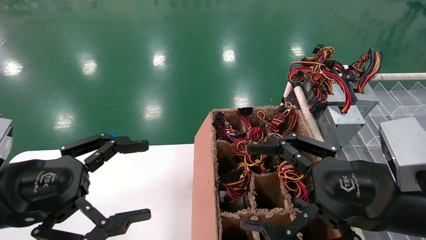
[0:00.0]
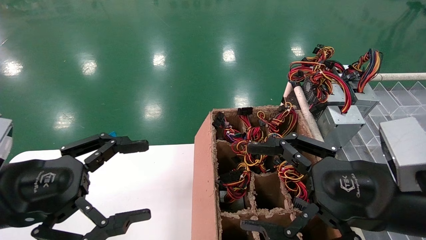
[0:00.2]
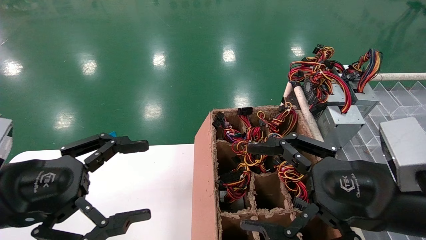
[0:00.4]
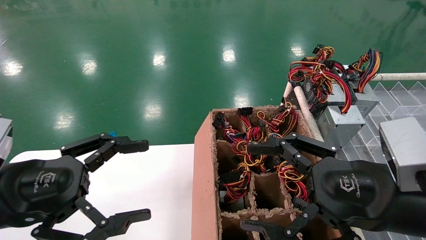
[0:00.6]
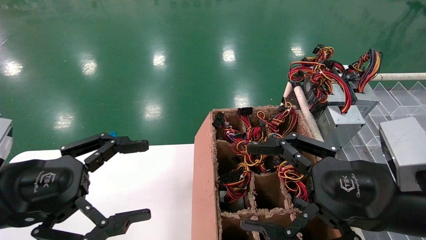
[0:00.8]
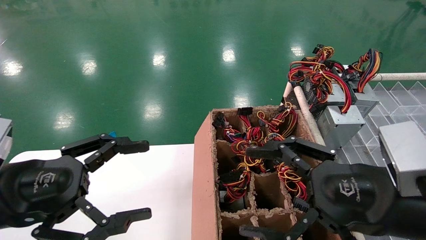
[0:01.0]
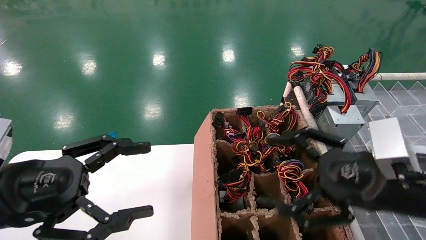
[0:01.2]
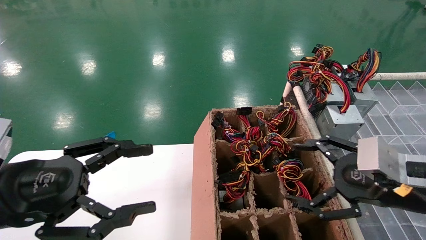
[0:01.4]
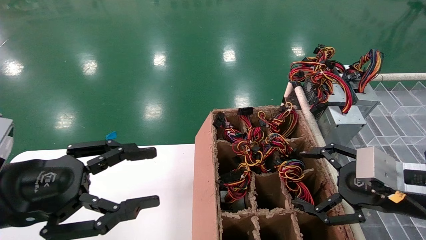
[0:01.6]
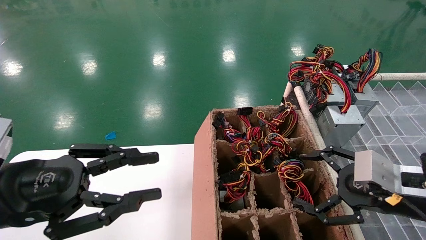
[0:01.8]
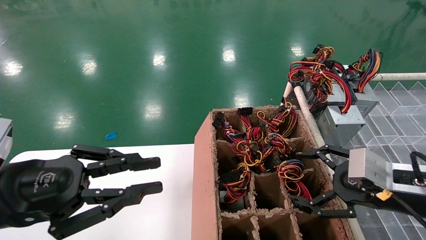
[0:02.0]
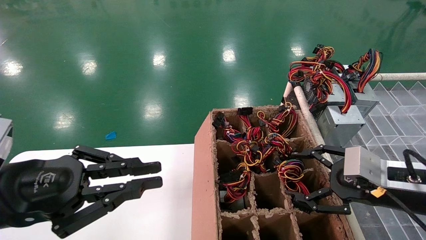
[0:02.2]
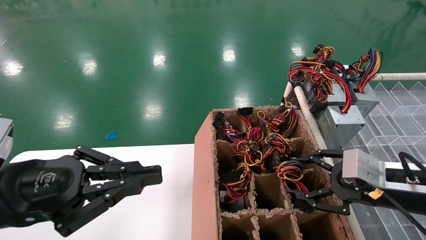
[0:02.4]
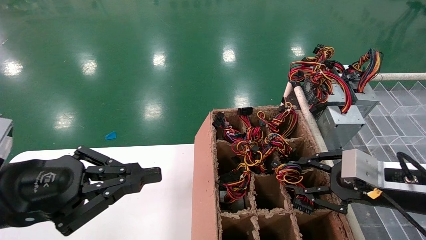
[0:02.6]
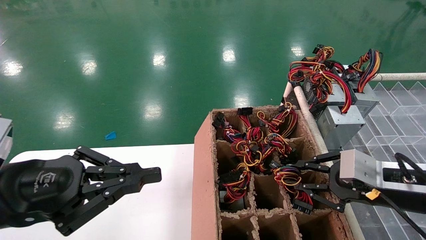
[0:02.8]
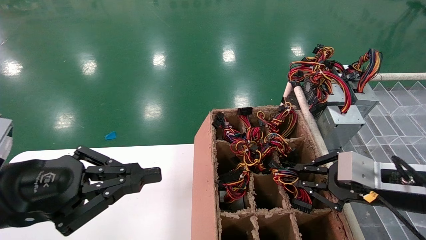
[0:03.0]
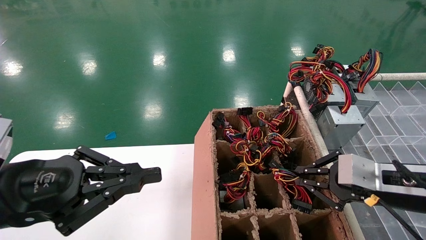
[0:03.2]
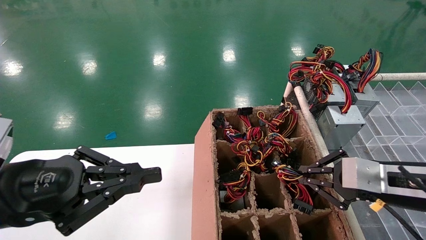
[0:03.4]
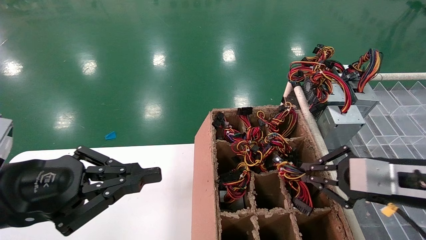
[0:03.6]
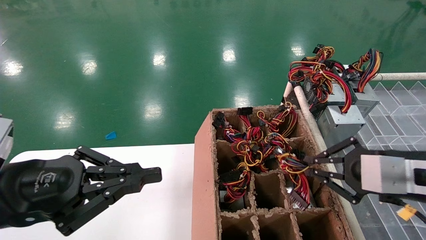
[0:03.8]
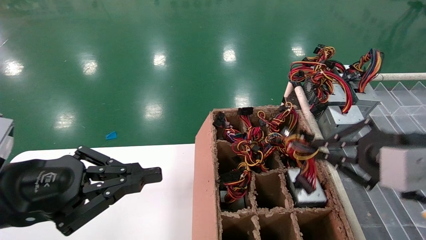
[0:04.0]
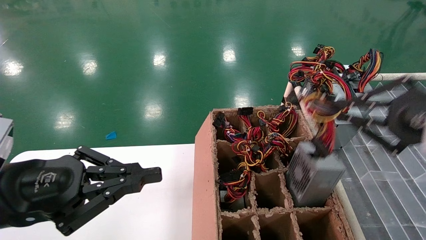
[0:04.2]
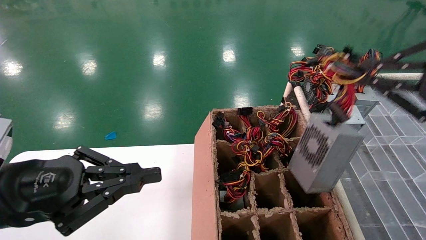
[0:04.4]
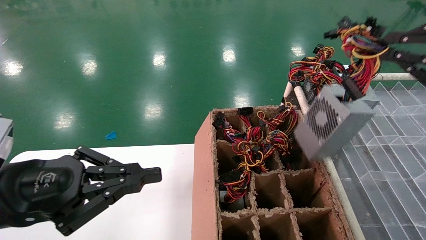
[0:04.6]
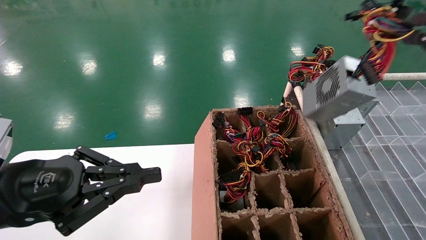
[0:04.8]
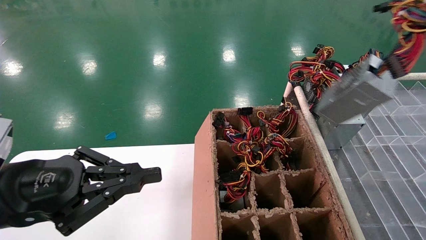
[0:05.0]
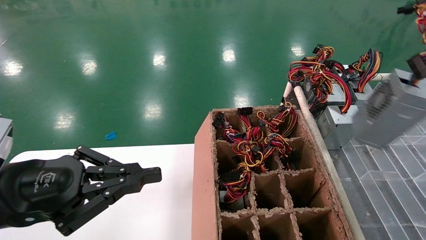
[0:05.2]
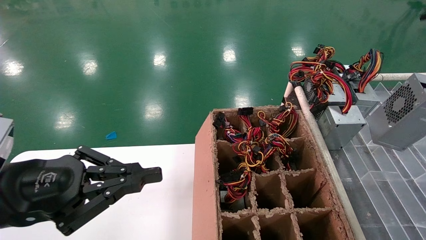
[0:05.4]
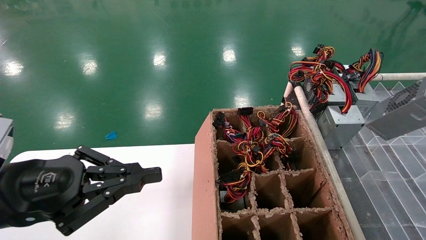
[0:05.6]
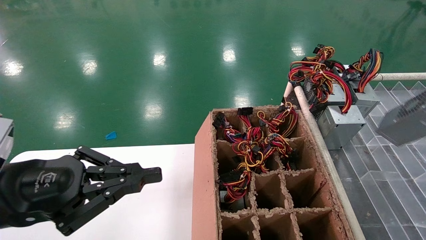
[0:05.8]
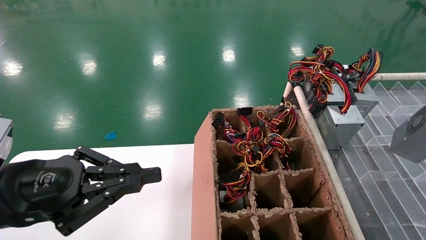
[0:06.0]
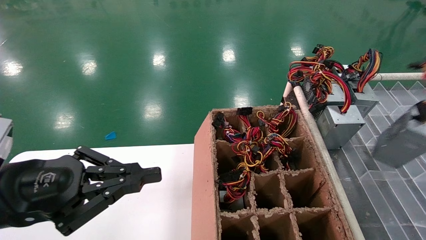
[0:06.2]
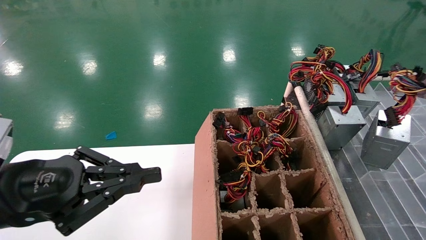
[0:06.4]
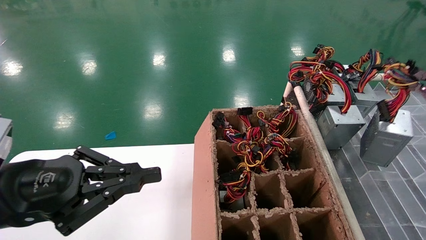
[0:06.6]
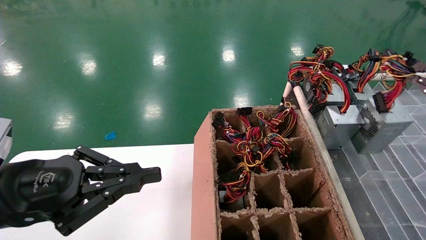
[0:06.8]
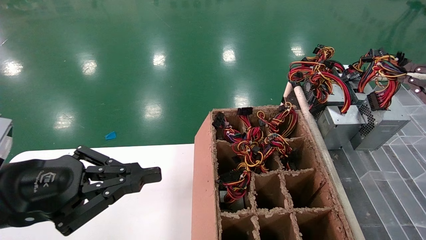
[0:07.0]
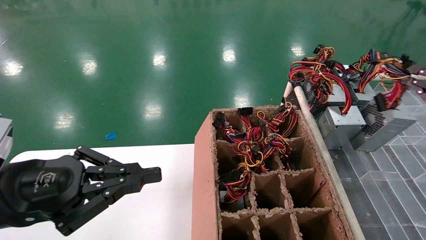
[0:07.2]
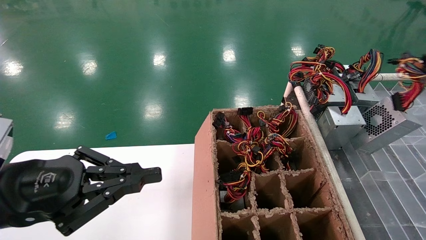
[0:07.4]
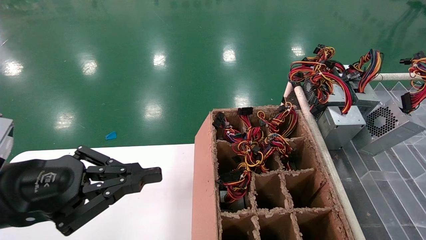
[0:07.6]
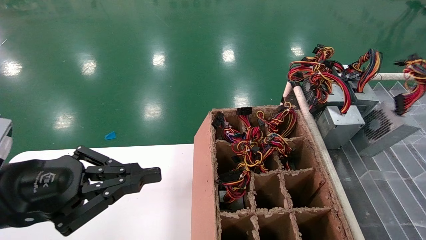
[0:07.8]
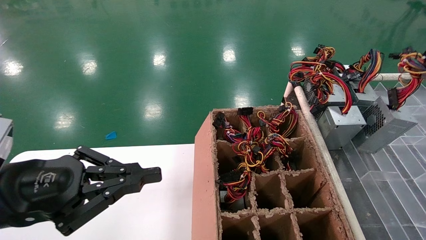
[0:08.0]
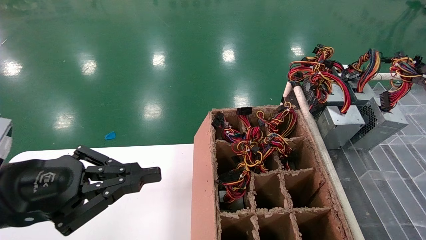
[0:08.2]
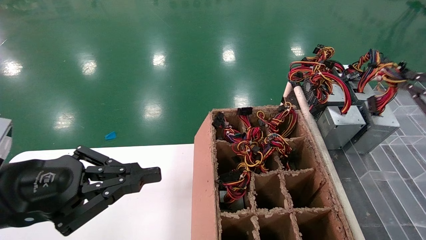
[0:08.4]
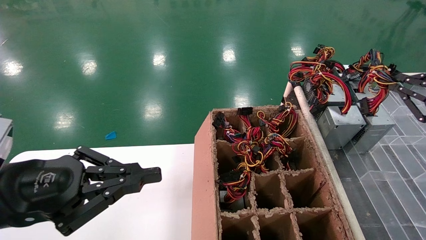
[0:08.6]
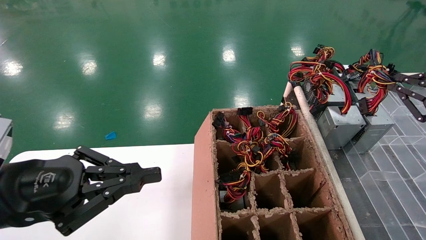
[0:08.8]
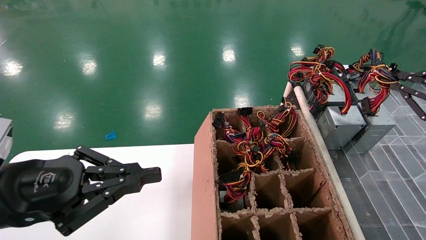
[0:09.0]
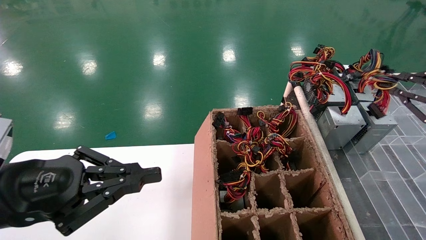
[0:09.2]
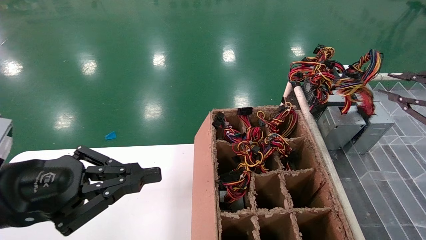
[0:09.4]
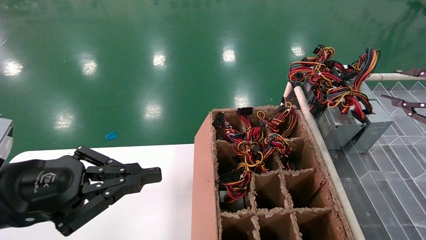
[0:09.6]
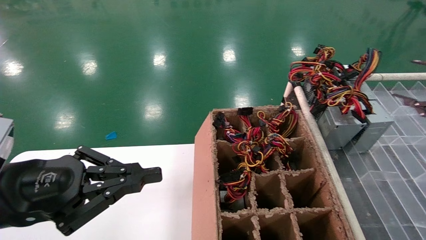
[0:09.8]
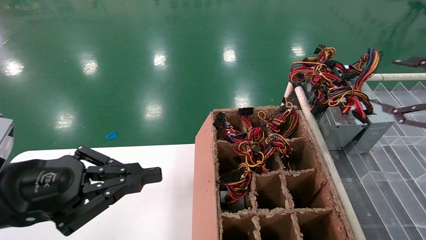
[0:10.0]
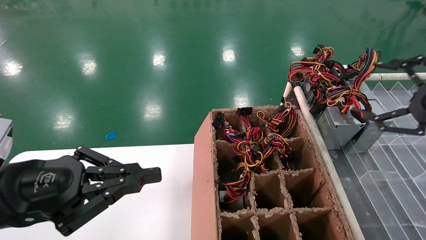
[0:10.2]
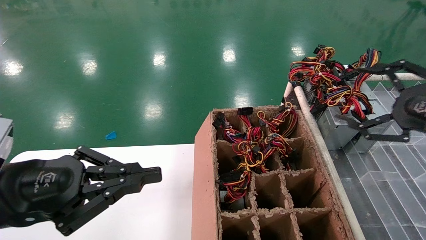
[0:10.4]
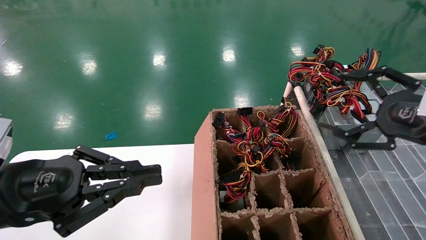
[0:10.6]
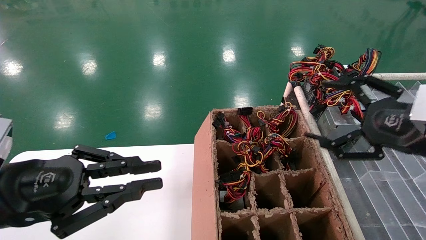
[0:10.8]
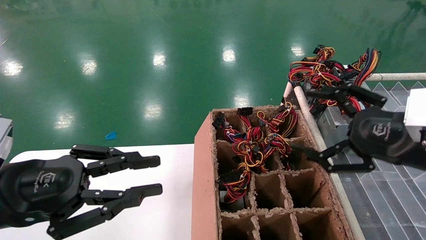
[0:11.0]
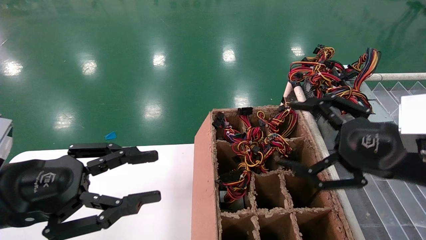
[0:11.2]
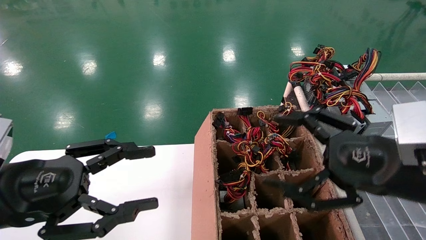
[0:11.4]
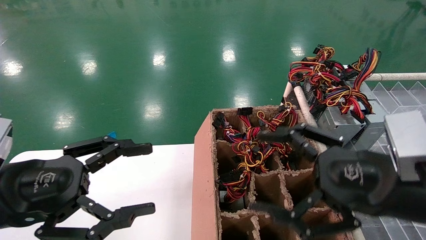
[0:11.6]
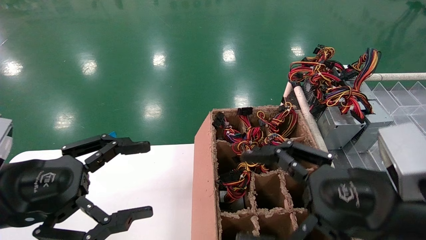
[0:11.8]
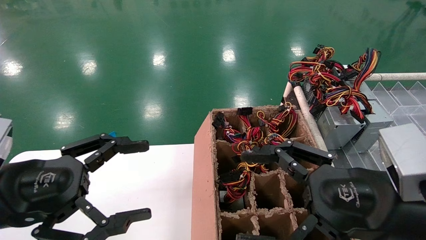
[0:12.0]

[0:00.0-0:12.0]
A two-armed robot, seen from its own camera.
Step, 0:01.4 to 0:03.4: Grab the main unit power supply from the containment box.
Step, 0:03.6 to 0:09.4: Place the main unit power supply in the designated area.
0:00.0 to 0:01.6: The right gripper heads to the right and forward, covering about 10 cm.
0:01.6 to 0:03.0: The left gripper closes up. The right gripper closes up.
0:03.0 to 0:04.4: The right gripper heads upward and backward, covering some 20 cm.
0:04.4 to 0:06.0: The right gripper moves to the right, about 15 cm.
0:06.0 to 0:07.6: The right gripper moves forward, roughly 10 cm.
0:07.6 to 0:09.0: The right gripper changes place by roughly 5 cm.
0:09.0 to 0:10.4: The right gripper heads to the left, covering roughly 10 cm, and opens up.
0:10.4 to 0:12.0: The left gripper opens its fingers. The right gripper goes some 15 cm to the left and backward.

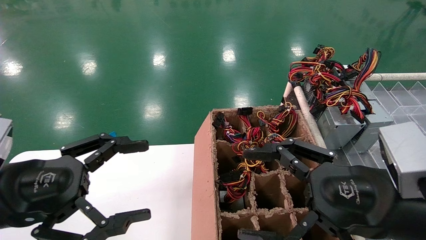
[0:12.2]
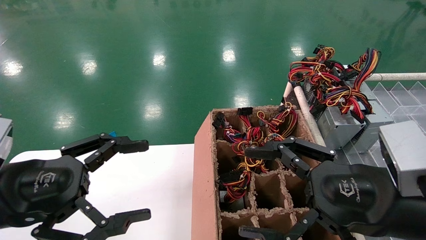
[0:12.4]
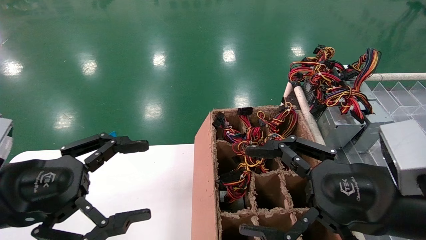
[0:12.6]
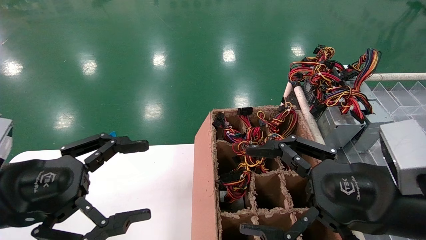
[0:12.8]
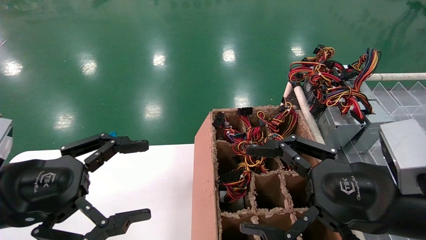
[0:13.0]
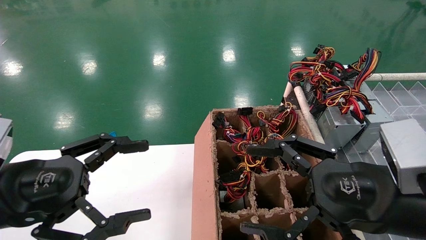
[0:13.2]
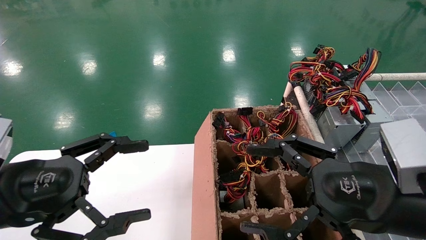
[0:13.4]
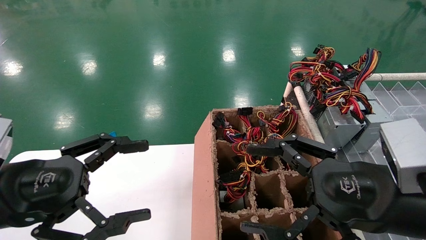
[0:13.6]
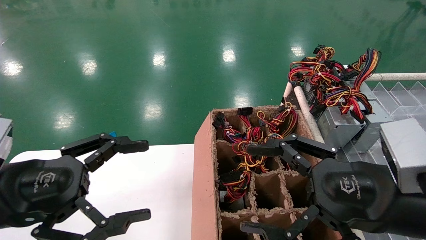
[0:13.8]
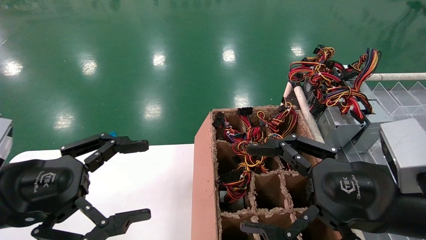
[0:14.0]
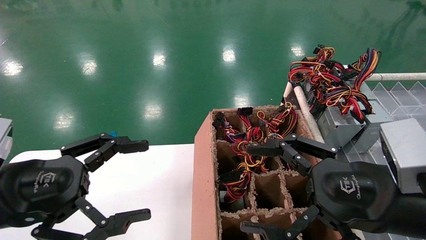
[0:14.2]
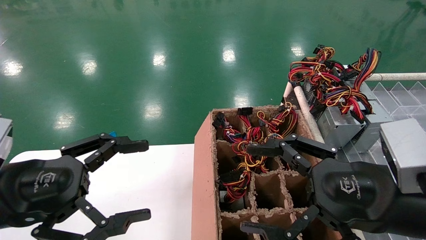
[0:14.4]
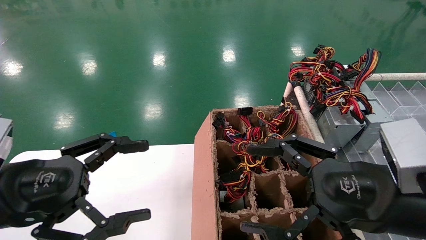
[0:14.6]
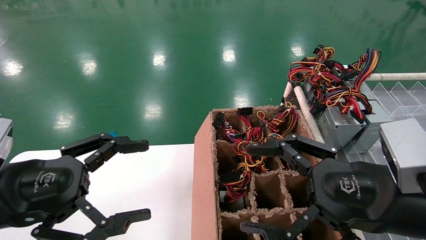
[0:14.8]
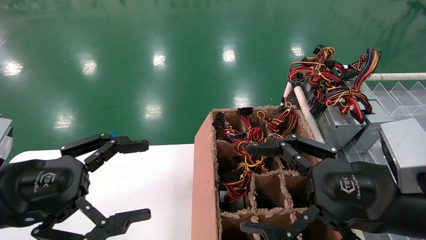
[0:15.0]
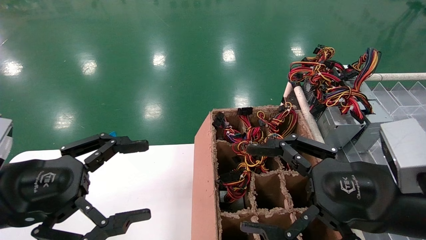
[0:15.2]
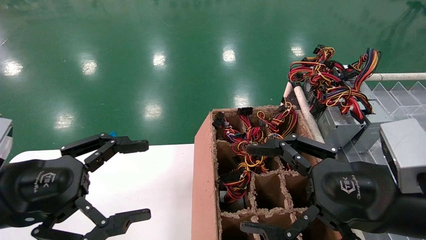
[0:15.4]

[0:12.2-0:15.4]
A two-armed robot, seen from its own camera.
0:12.2 to 0:15.4: Neither gripper changes place.

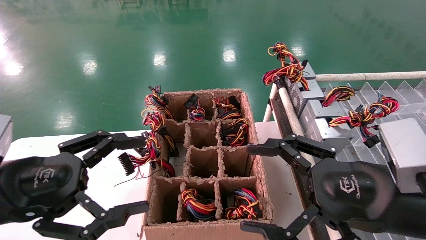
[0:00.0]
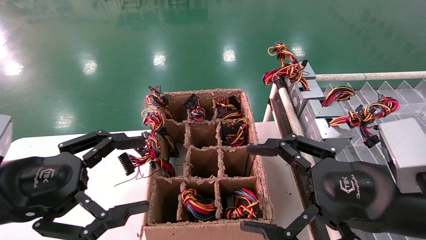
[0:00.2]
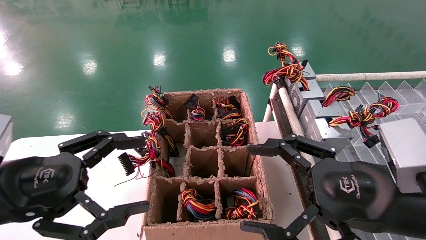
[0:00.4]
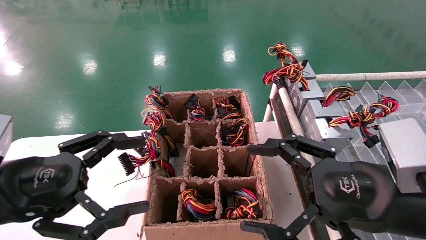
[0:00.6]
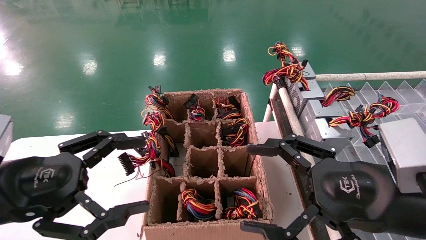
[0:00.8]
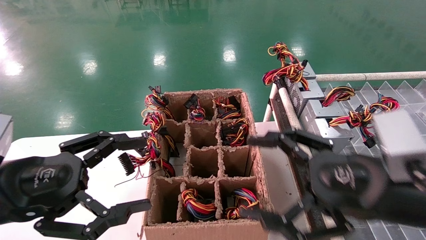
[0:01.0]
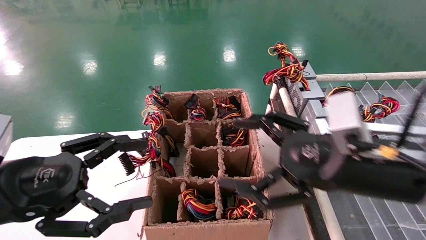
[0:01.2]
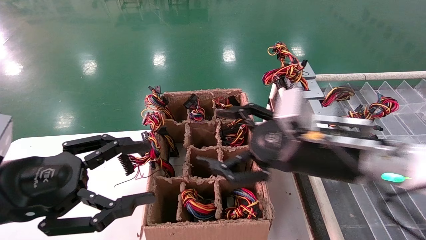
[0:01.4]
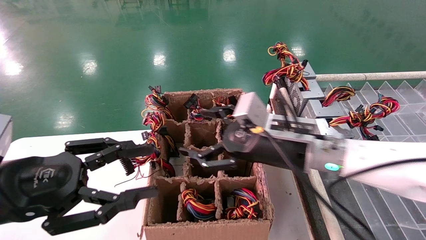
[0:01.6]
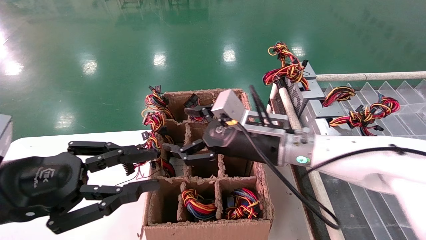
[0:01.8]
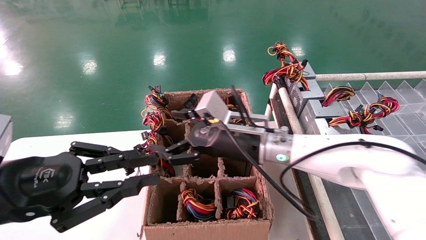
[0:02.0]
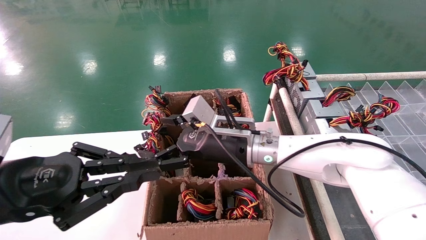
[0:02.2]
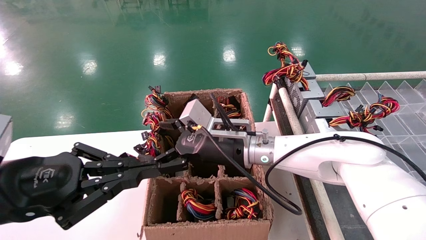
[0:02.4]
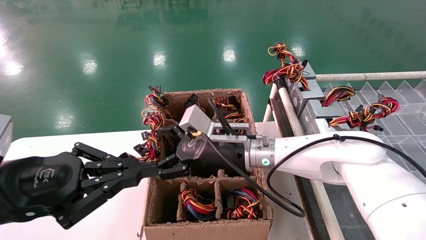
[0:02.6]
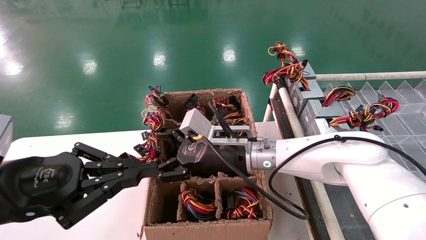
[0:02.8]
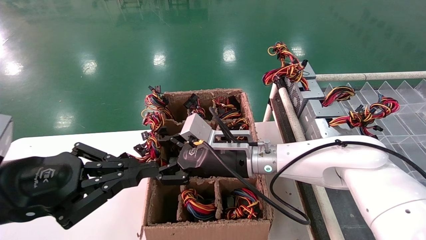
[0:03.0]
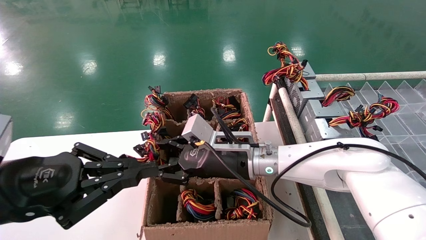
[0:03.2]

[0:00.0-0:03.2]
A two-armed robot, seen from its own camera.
0:00.0 to 0:01.6: The right gripper shifts roughly 15 cm forward and to the left.
0:01.6 to 0:03.2: The left gripper closes up, while the right gripper travels to the left and forward by approximately 10 cm, and closes its fingers.
